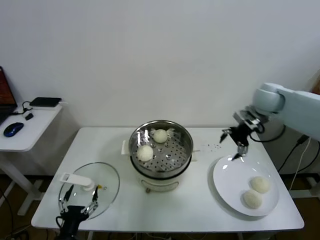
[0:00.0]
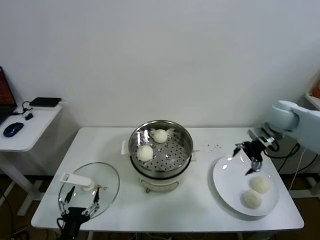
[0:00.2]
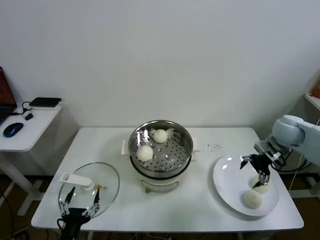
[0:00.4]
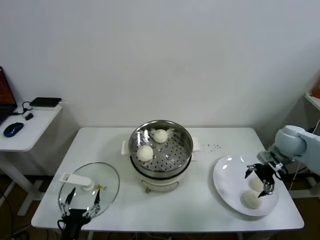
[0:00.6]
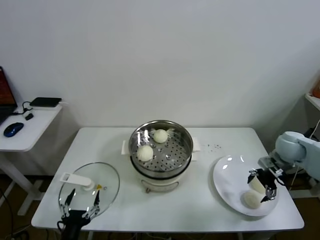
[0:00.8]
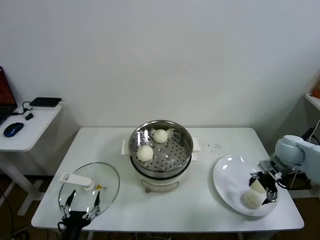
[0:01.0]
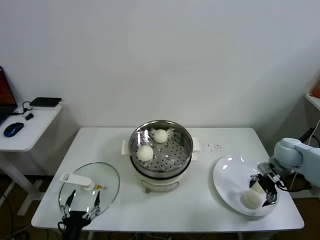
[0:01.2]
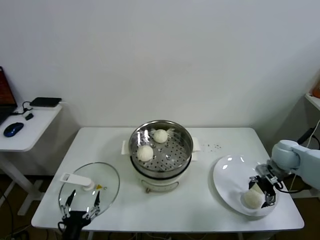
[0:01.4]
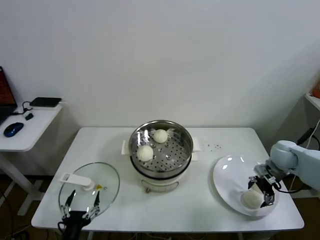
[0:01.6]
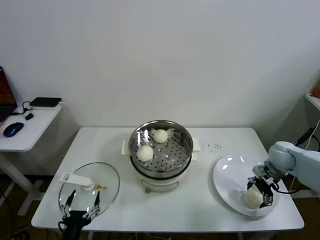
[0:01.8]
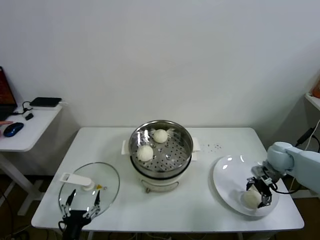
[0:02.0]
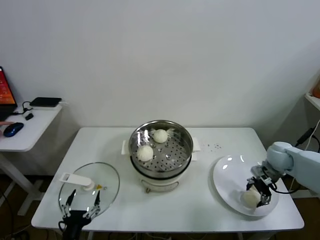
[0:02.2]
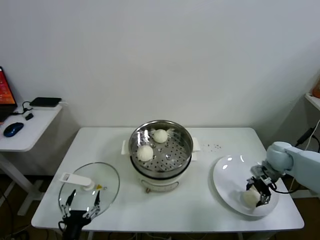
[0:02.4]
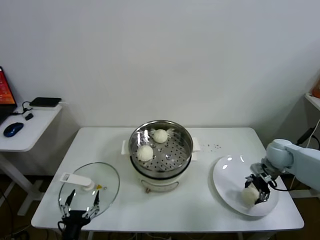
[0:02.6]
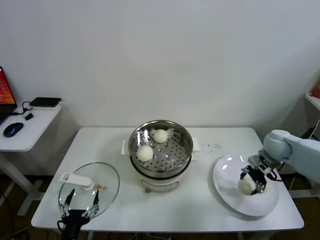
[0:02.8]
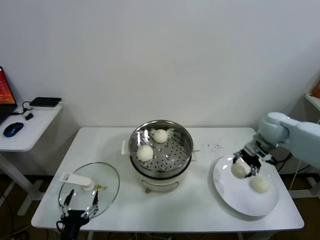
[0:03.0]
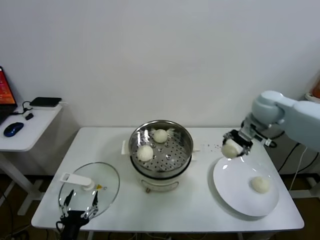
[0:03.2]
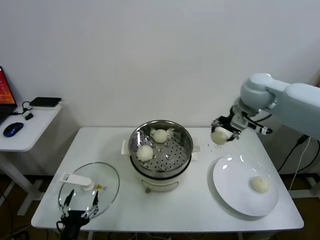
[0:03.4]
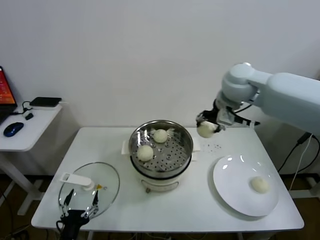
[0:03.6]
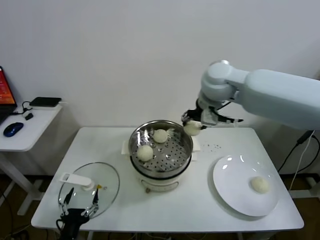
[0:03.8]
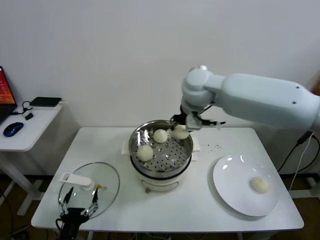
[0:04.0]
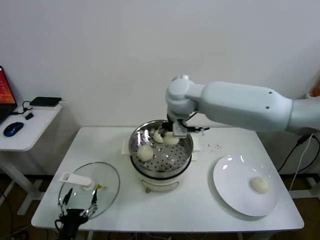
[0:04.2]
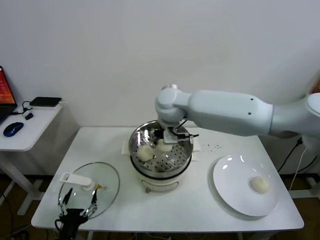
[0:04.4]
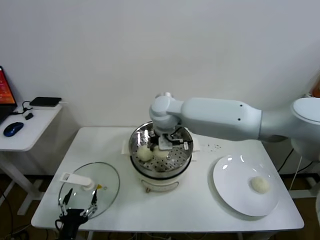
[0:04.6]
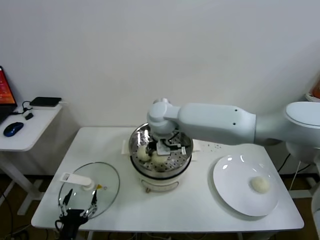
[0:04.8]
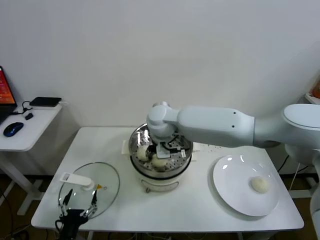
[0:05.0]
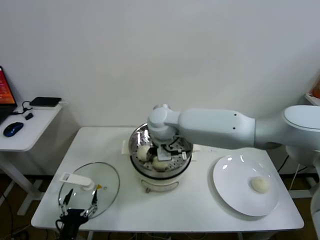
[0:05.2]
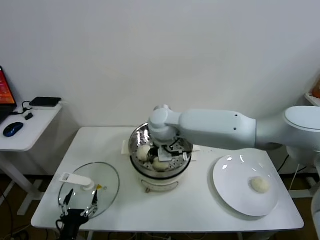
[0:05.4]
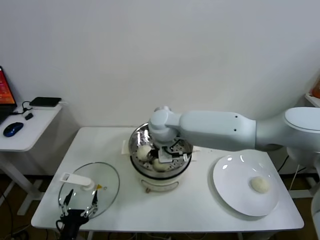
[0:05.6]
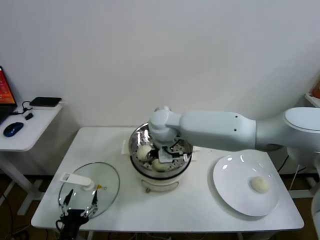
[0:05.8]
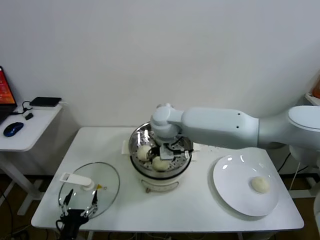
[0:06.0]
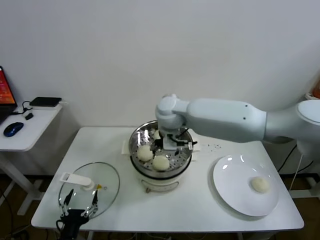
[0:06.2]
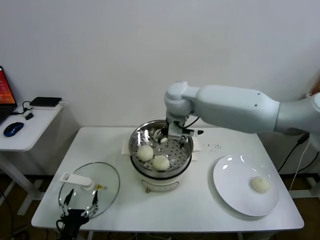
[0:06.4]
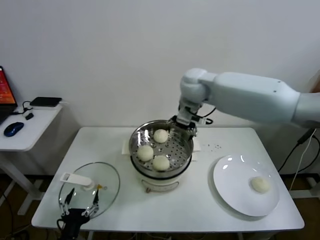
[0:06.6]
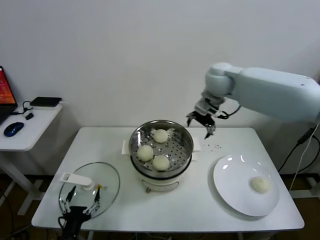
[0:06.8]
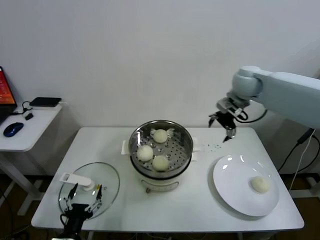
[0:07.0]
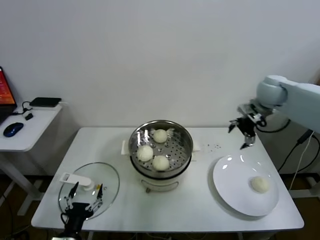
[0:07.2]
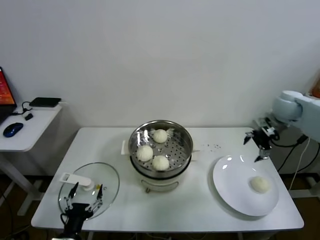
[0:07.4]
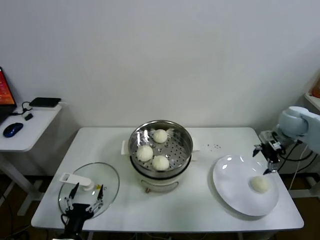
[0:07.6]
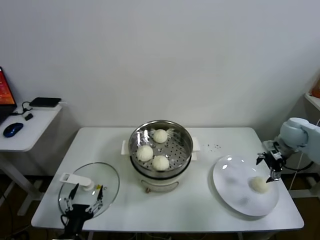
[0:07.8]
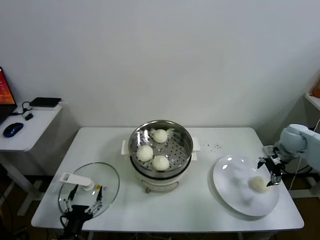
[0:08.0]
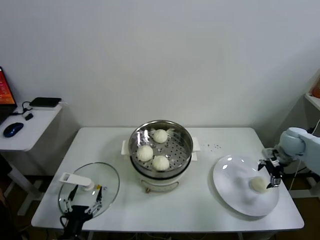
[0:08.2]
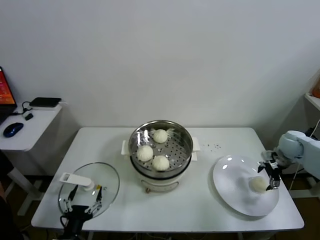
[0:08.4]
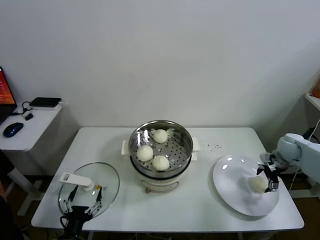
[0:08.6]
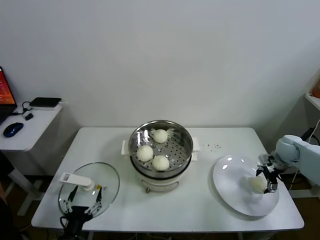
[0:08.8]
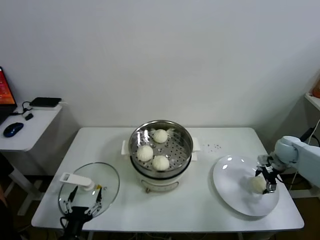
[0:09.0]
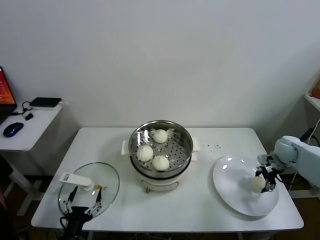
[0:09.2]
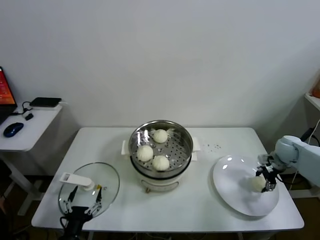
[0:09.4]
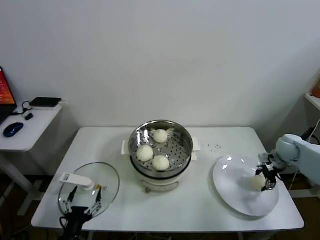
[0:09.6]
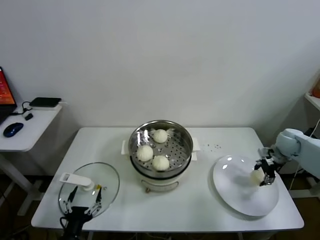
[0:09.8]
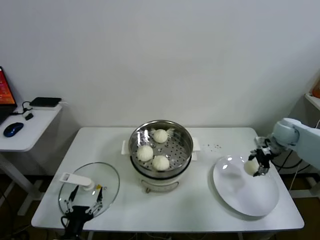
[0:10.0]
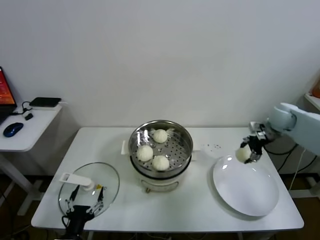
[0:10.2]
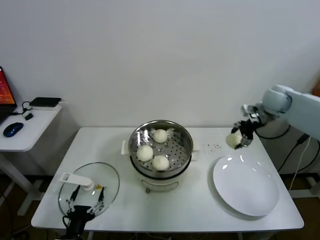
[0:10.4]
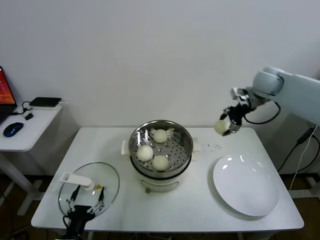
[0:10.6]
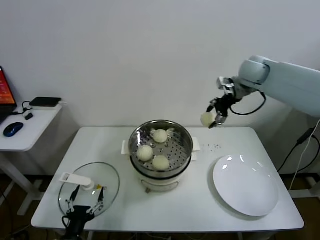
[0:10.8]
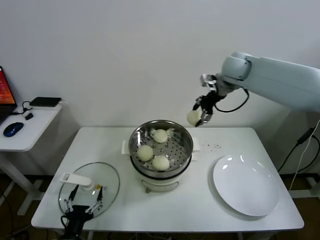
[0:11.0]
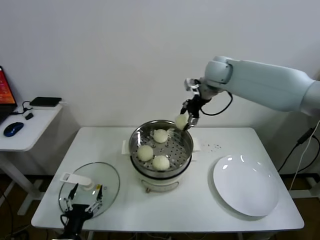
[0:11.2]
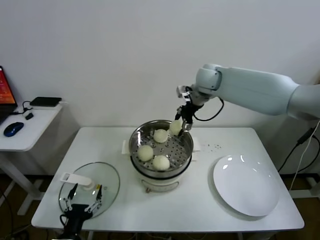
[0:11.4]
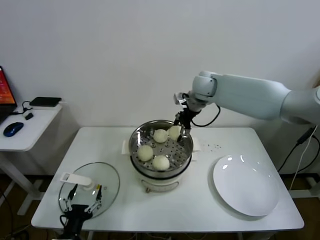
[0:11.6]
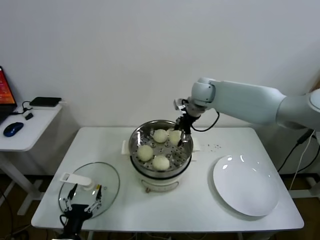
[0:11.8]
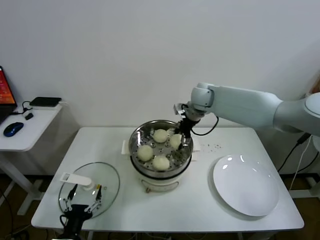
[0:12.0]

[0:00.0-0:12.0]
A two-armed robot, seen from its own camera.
Task of the whole recording: take steamed baozi put them in steamer.
Step, 0:00.0 to 0:02.6: Grasp the baozi in the plate with right gripper.
Step, 0:02.8 to 0:05.8: Place the baozi on the steamer with right gripper.
Step, 0:06.2 to 0:09.4: Grasp the baozi in the plate with right gripper.
0:00.0 to 0:01.6: The right gripper heads downward, to the right and backward, covering roughly 20 cm.
0:01.6 to 0:03.0: The right gripper heads upward and to the left, covering approximately 10 cm, and closes up.
0:03.0 to 0:04.4: The right gripper is displaced to the left by roughly 35 cm.
0:04.4 to 0:06.0: The right gripper travels downward by roughly 5 cm, and opens.
0:06.0 to 0:07.6: The right gripper goes some 40 cm to the right.
0:07.6 to 0:09.0: The right gripper shifts some 15 cm downward.
0:09.0 to 0:10.4: The right gripper is displaced upward and to the left by some 20 cm, and closes its fingers.
0:10.4 to 0:12.0: The right gripper is displaced to the left by approximately 25 cm.

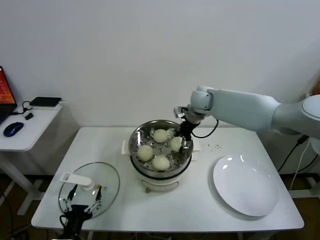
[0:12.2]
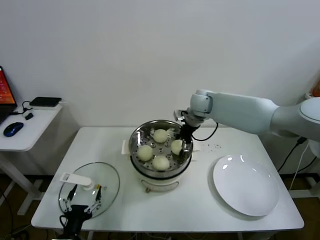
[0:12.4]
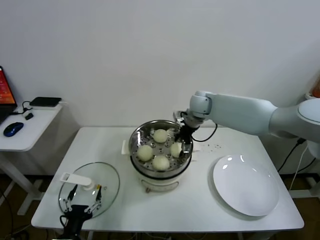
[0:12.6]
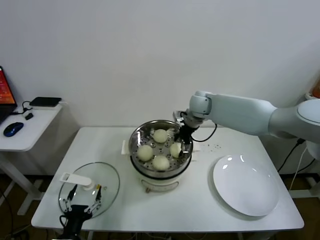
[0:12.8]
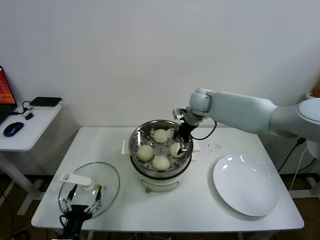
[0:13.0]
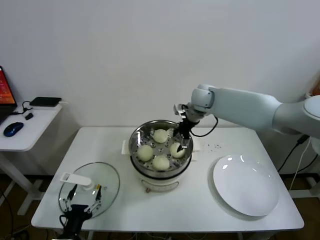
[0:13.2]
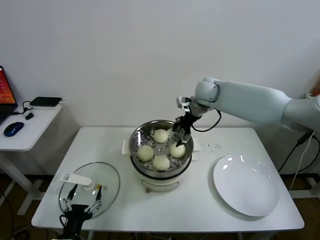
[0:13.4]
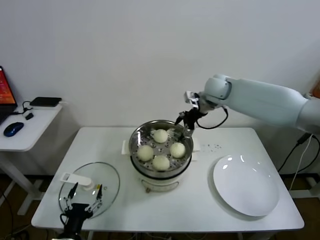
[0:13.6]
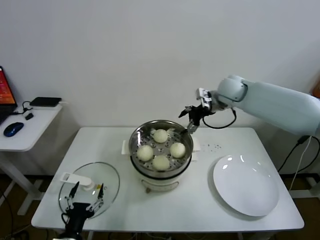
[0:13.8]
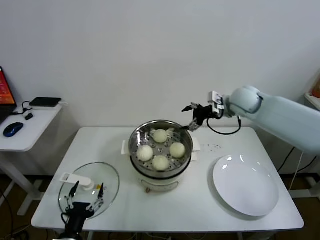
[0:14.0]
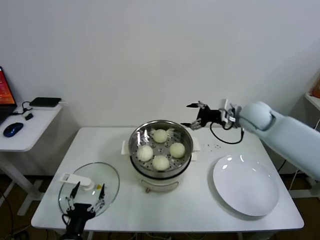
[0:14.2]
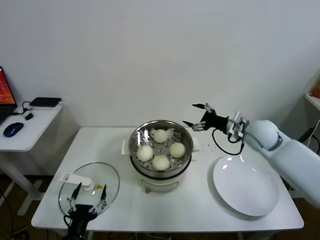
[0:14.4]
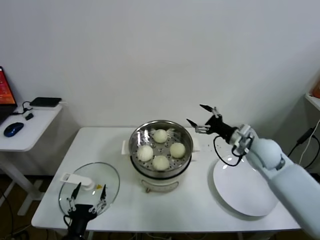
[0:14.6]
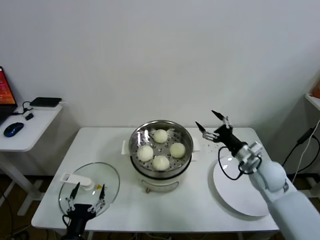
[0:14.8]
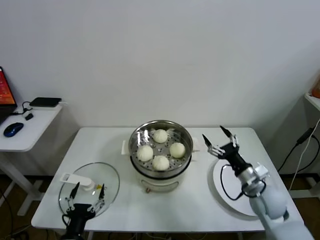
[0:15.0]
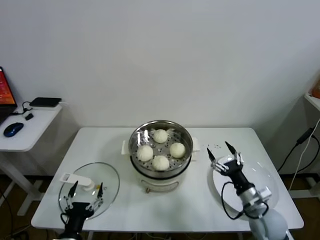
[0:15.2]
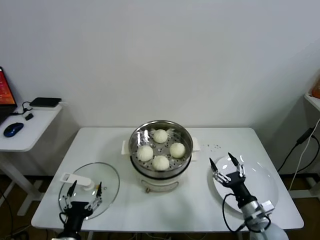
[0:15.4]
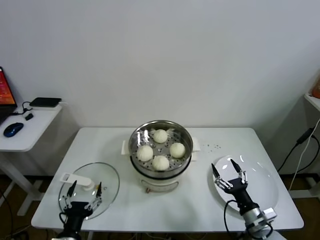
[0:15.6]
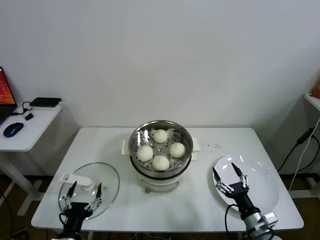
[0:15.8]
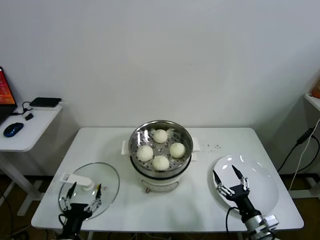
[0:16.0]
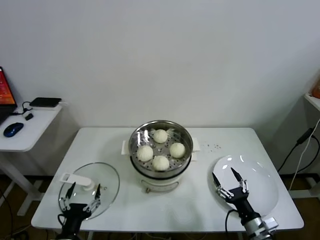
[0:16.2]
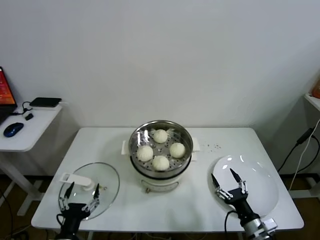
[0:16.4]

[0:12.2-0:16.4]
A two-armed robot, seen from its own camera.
Task of the whole recording: take steamed baozi put them in steamer.
0:12.2 to 0:13.6: The right gripper changes place by roughly 5 cm.
0:13.6 to 0:15.0: The right gripper travels backward, downward and to the right by approximately 35 cm.
0:15.0 to 0:16.4: The right gripper goes some 20 cm backward and downward.

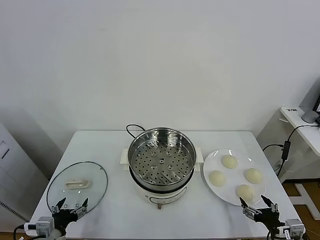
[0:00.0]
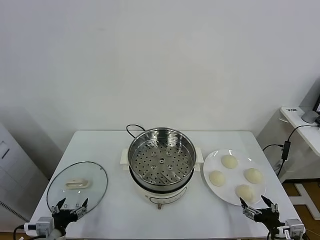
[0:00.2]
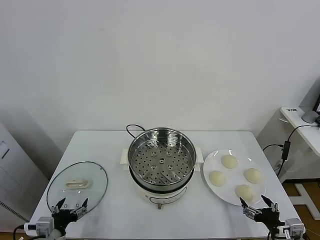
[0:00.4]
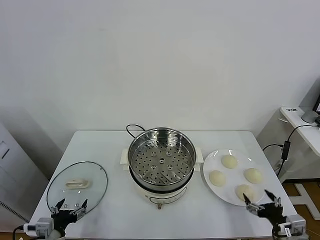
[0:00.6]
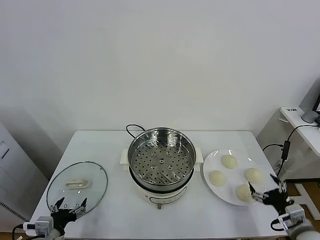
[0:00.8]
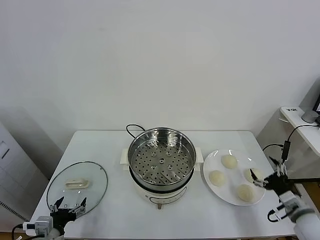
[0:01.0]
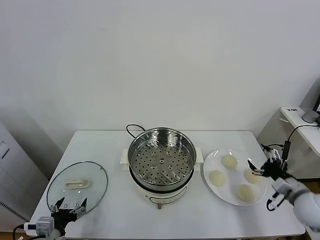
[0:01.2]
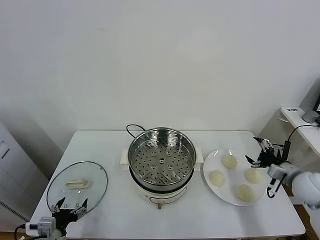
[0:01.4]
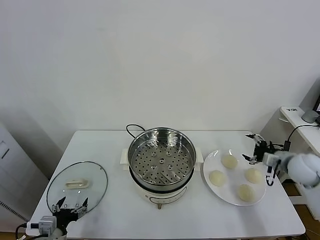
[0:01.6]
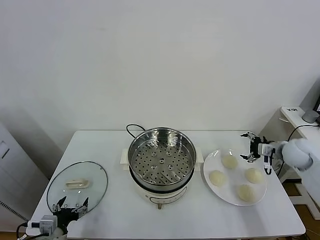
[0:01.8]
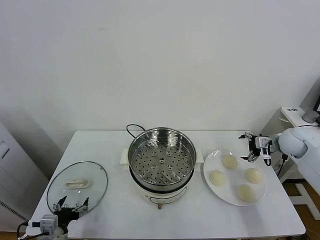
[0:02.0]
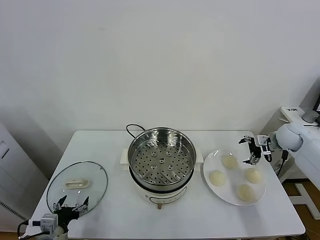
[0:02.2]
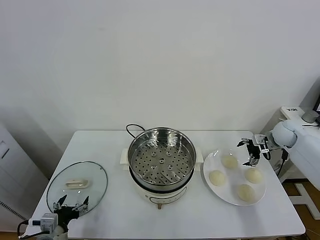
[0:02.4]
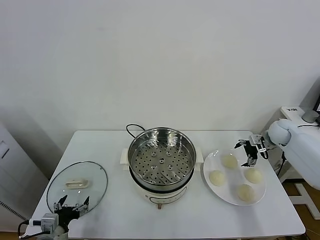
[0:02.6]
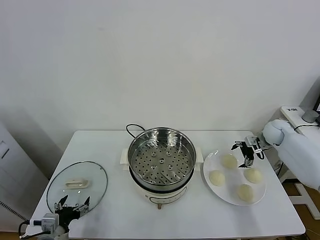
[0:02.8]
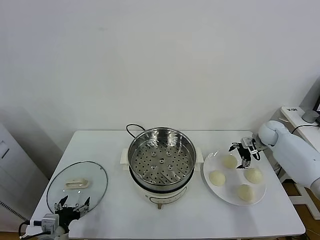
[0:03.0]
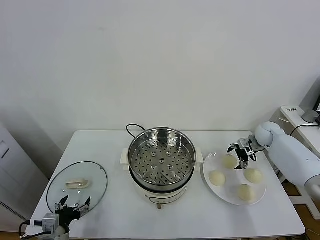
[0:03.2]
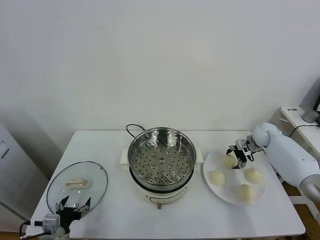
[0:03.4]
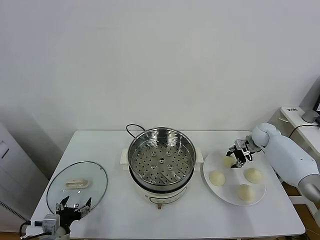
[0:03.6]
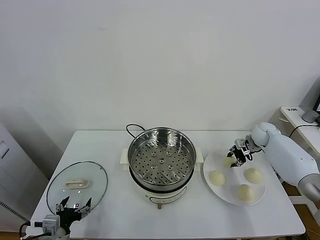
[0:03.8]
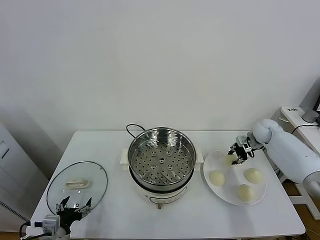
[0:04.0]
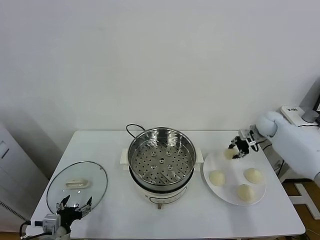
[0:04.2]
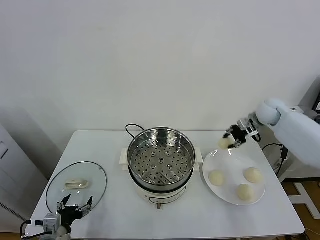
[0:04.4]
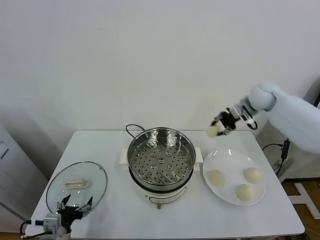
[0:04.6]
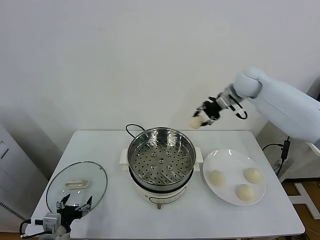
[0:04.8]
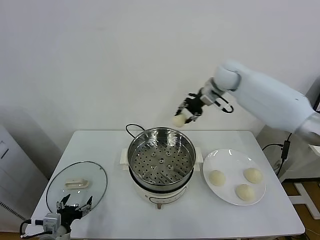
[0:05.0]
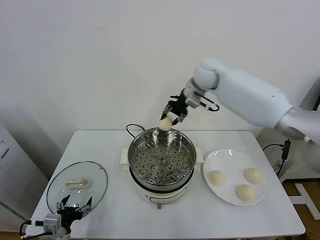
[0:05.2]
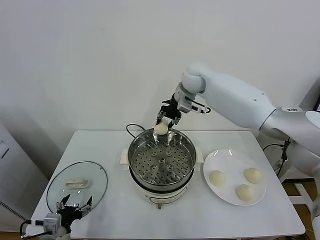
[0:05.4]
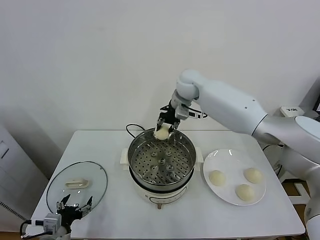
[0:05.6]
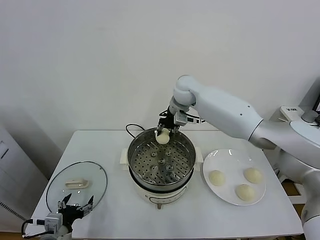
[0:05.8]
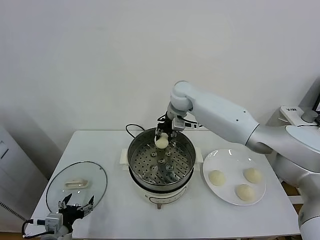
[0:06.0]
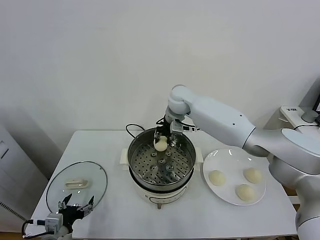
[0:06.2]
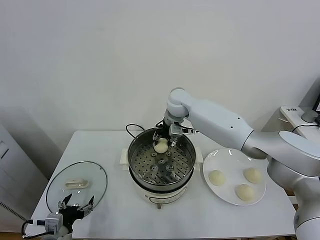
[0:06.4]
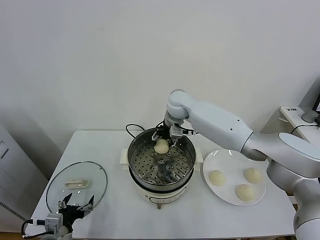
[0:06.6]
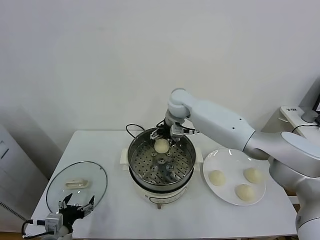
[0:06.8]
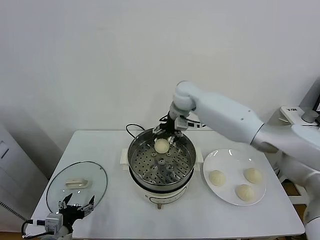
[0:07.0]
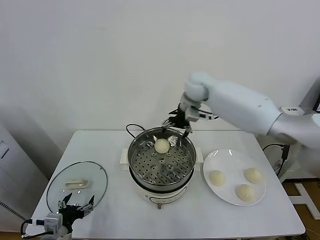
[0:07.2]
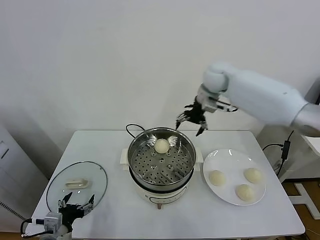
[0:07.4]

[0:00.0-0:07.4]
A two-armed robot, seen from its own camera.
Task of the whole recording: take steamed baozi put them in steamer.
Step, 0:00.0 to 0:03.6: Grasp the baozi in the plate with right gripper.
Step, 0:03.8 to 0:06.8: Place the baozi on the steamer with right gripper.
0:01.4 to 0:03.0: The right gripper shifts roughly 20 cm forward.
0:03.0 to 0:04.4: The right gripper shifts about 15 cm upward and to the left, and closes up.
0:04.4 to 0:06.0: The right gripper heads to the left, covering some 30 cm.
0:06.0 to 0:07.4: The right gripper shifts some 15 cm to the right and upward, and opens its fingers.
